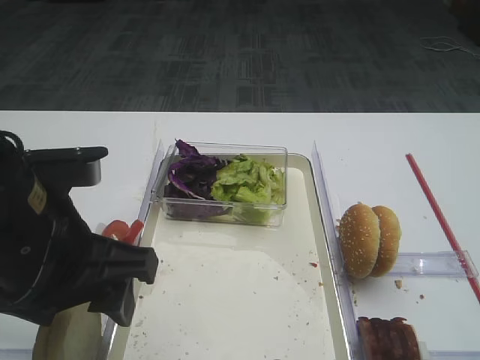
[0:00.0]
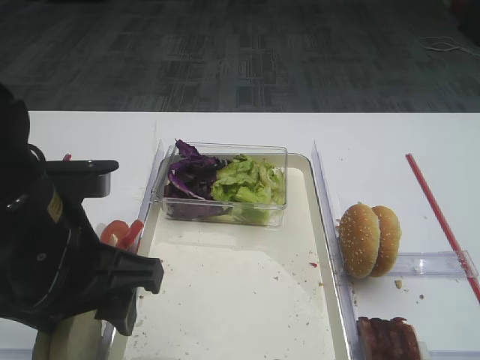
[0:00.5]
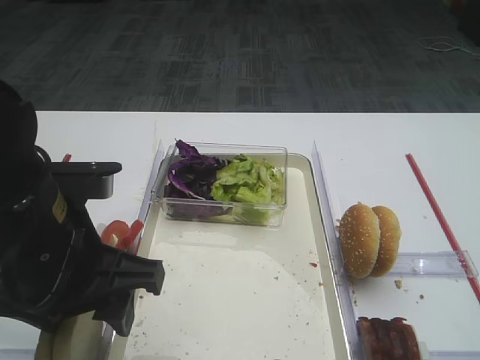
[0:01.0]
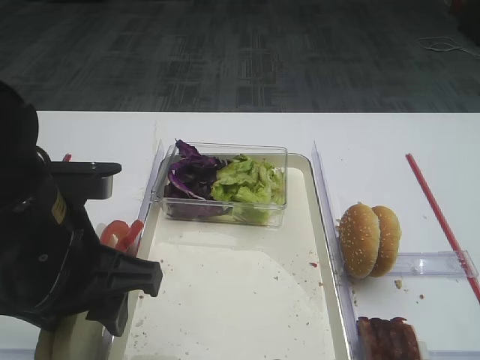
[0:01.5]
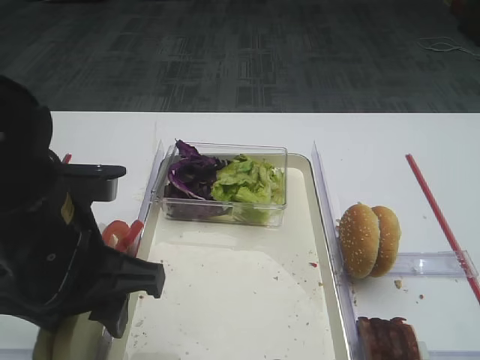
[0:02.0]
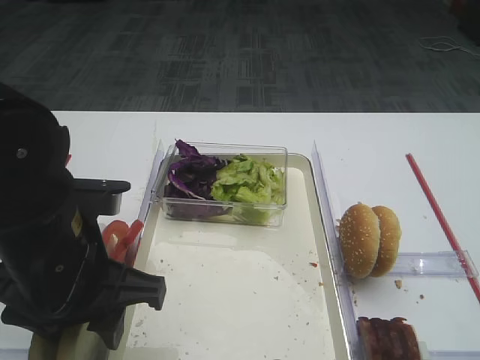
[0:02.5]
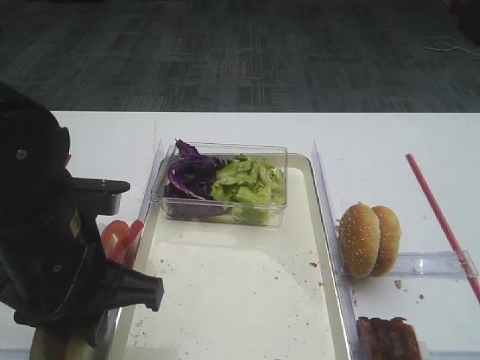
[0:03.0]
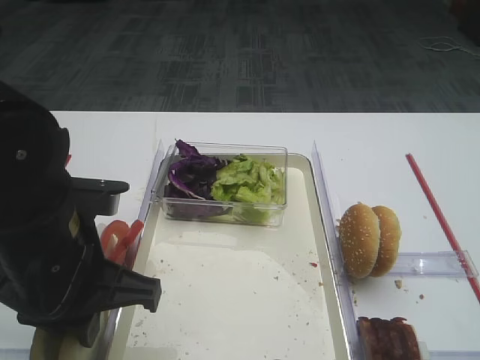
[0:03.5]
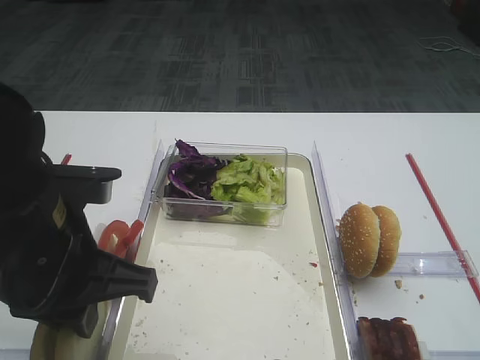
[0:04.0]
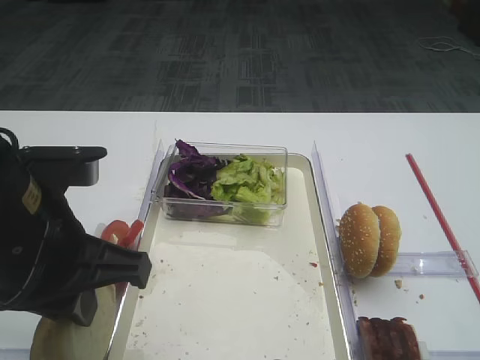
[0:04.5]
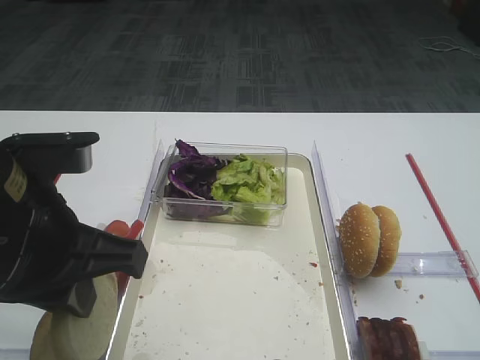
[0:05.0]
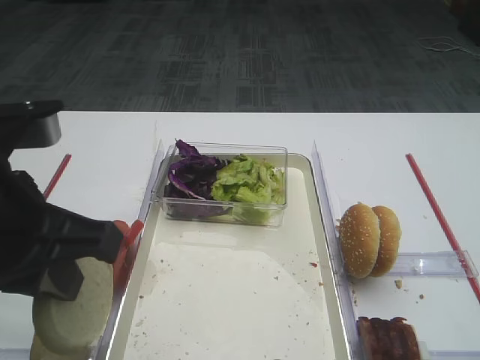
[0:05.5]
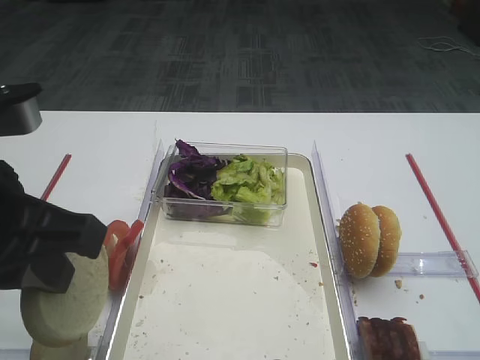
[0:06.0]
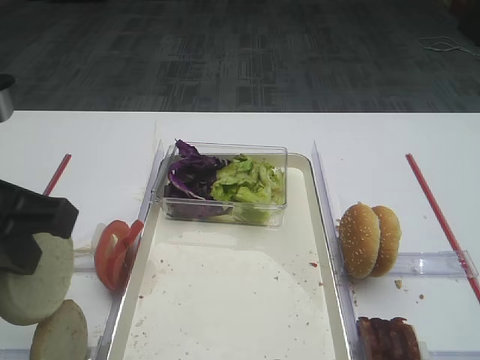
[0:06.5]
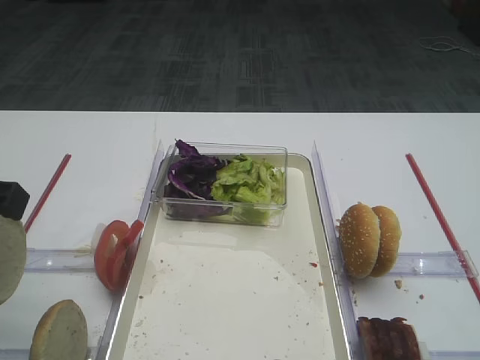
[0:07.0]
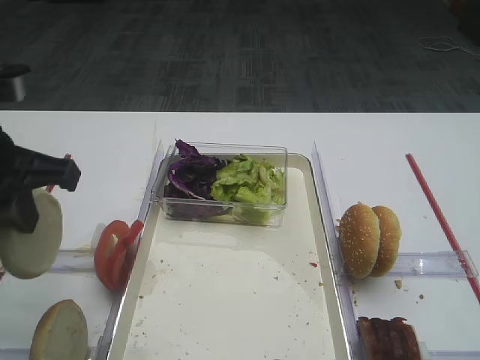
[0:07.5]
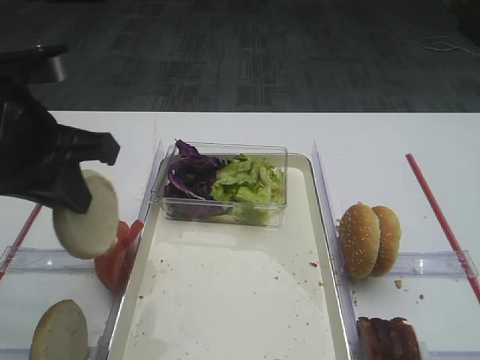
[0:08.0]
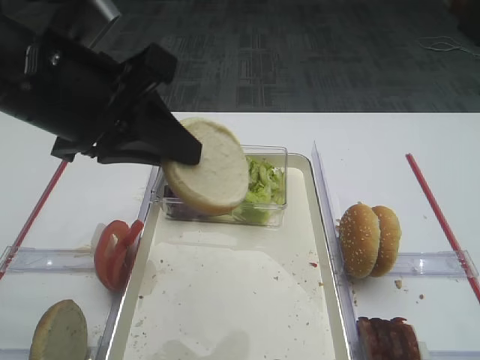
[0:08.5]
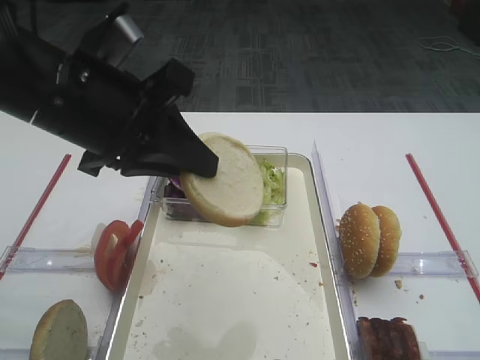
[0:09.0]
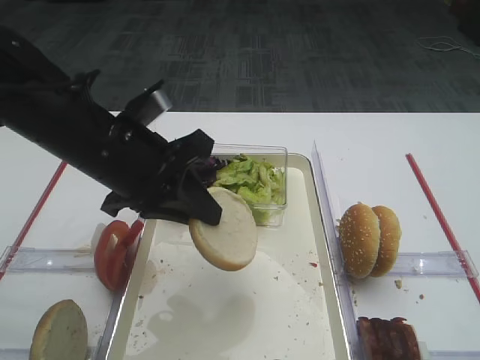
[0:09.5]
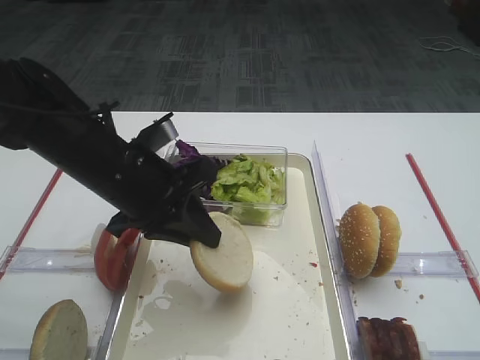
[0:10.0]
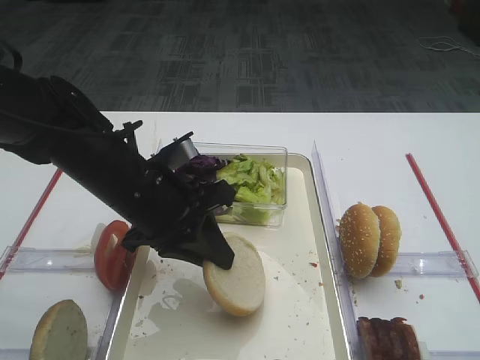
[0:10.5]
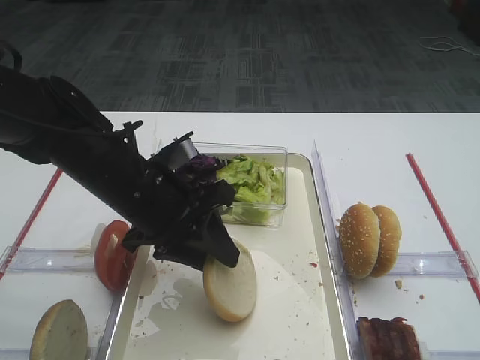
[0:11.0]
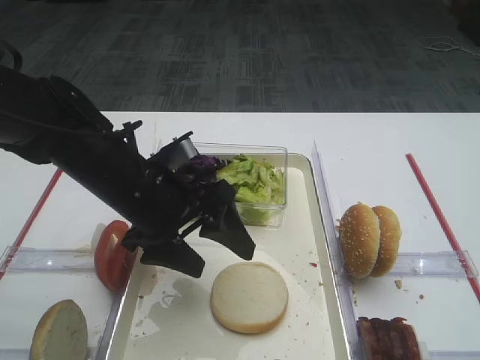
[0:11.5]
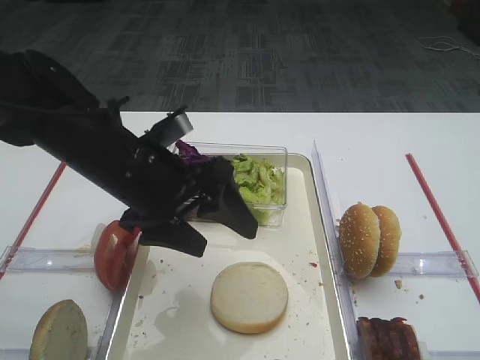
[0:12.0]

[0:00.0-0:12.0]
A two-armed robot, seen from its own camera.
Step, 0:00.0 to 0:05.5: Pick up the bread slice with the left gripper.
Step, 0:06.0 to 0:11.5: Place the bread slice on the tray with the left gripper.
0:00.0 to 0:02.0: The grippers make only small movements.
0:02.0 to 0:04.0: The left gripper closes up.
0:04.0 to 0:06.0: The left gripper moves upward, approximately 5 cm.
0:06.0 to 0:08.0: The left gripper heads forward, covering about 10 cm.
0:08.0 to 0:10.0: The left gripper moves downward and to the right, approximately 10 cm.
0:10.0 to 0:12.0: The left gripper opens its fingers.

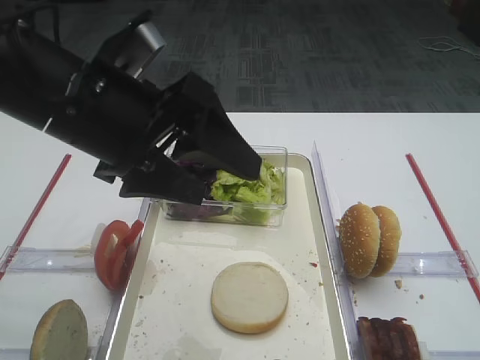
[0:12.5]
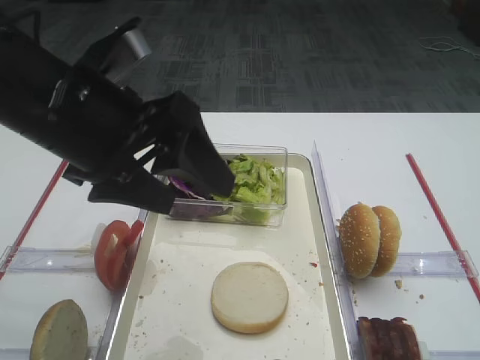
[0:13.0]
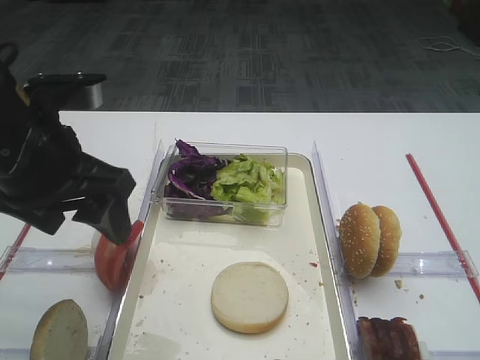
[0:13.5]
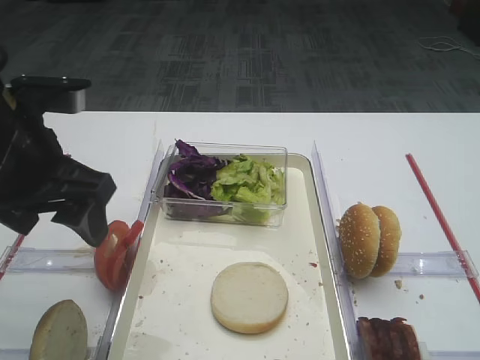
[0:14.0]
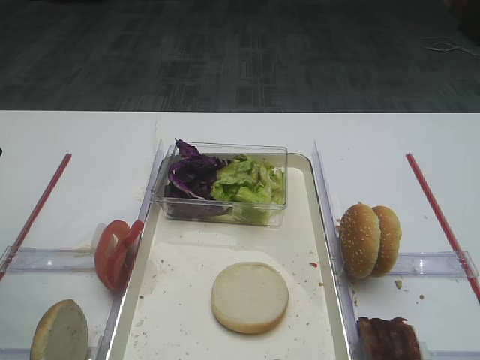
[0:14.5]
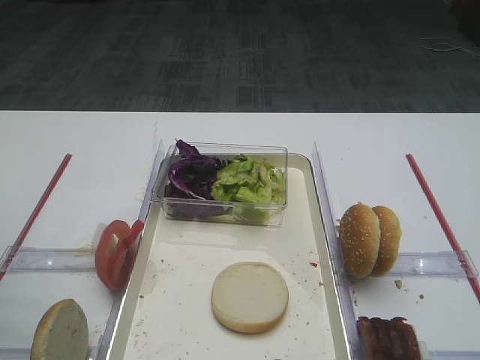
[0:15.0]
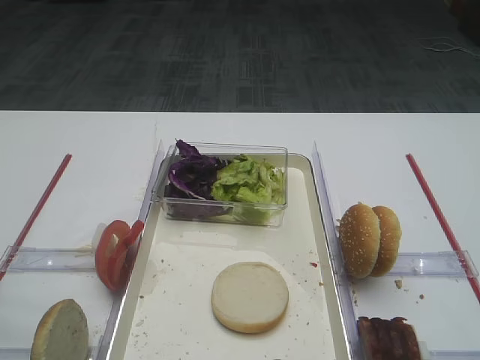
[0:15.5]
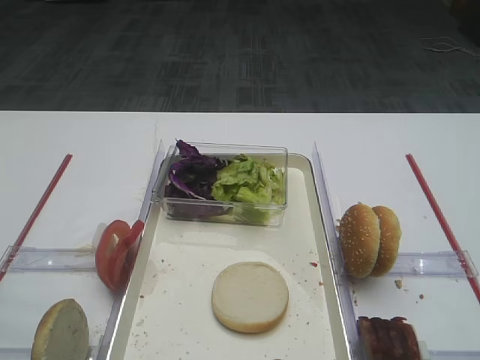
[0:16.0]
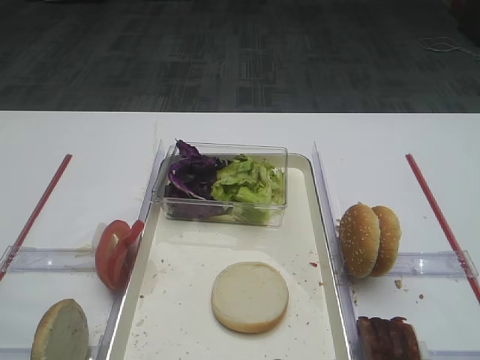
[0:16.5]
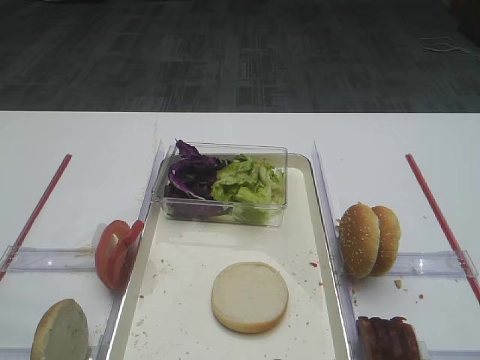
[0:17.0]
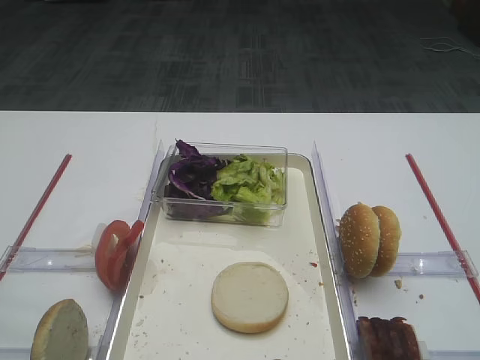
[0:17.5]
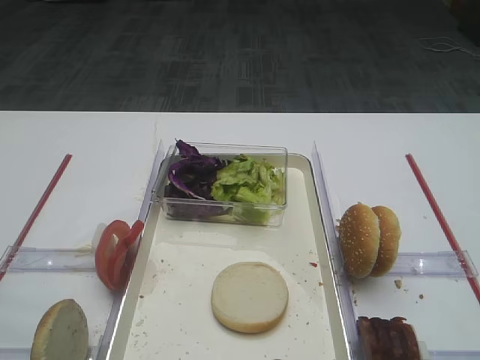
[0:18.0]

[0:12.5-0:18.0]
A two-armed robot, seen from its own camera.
0:12.5 to 0:14.5: The left gripper moves to the left, some 20 cm.
0:14.5 to 0:16.0: The left gripper moves backward, about 20 cm.

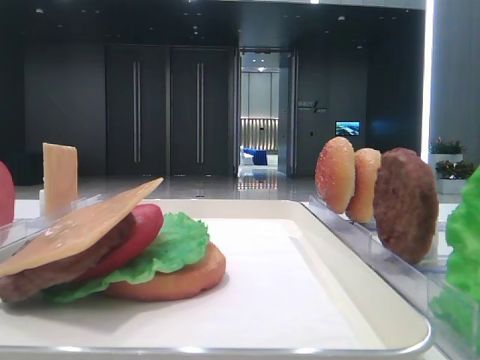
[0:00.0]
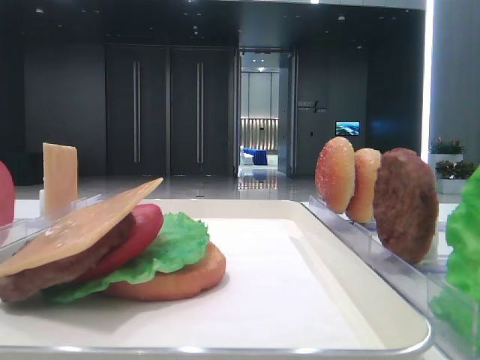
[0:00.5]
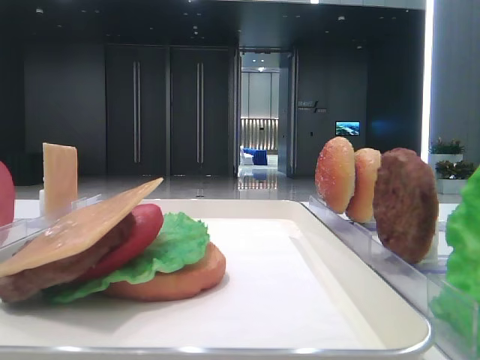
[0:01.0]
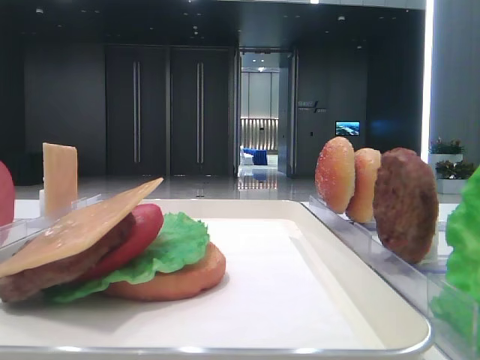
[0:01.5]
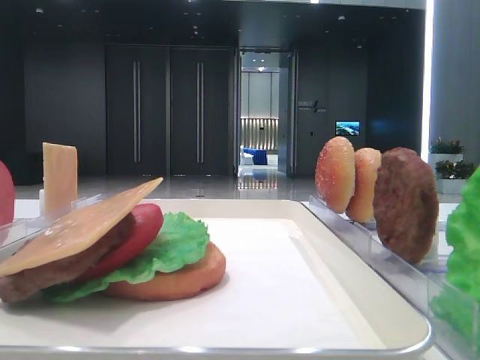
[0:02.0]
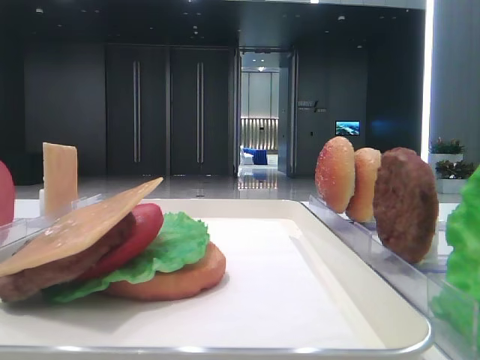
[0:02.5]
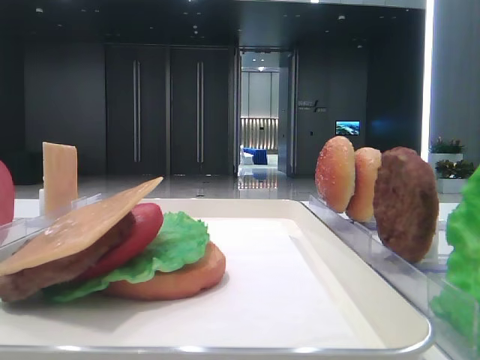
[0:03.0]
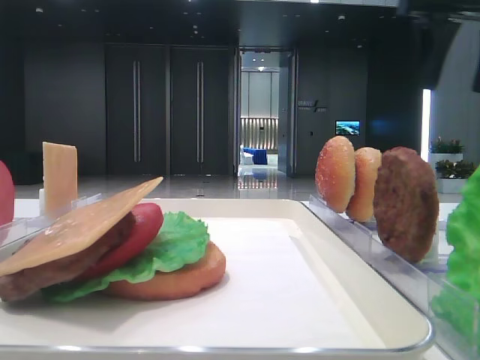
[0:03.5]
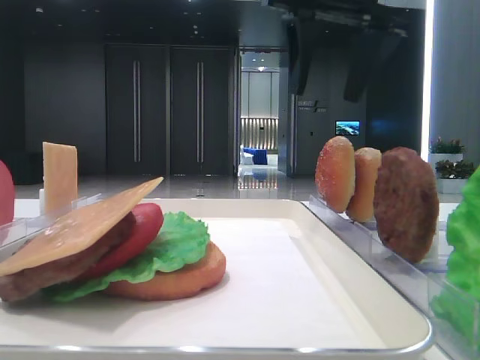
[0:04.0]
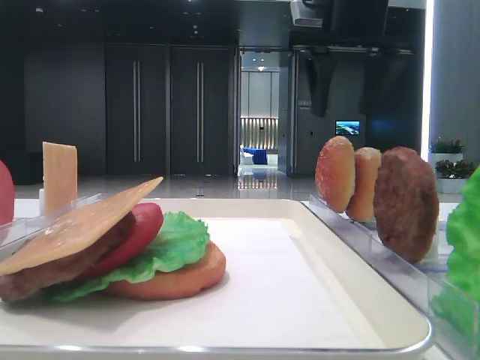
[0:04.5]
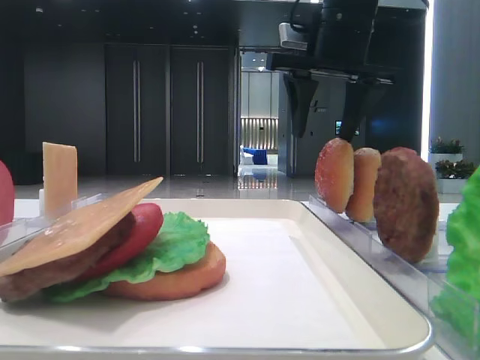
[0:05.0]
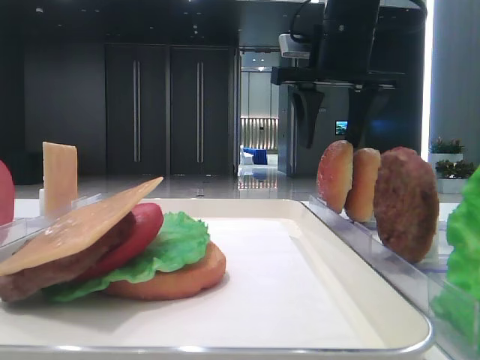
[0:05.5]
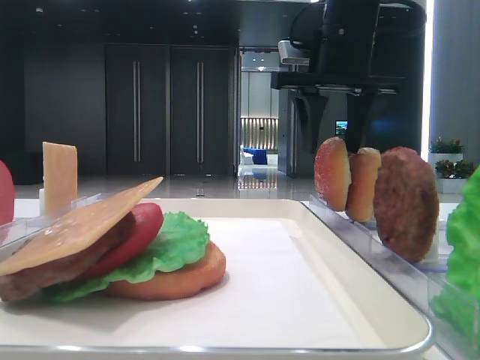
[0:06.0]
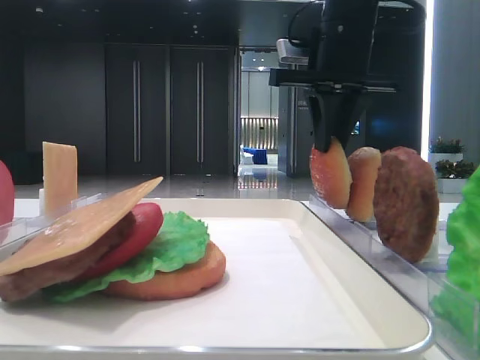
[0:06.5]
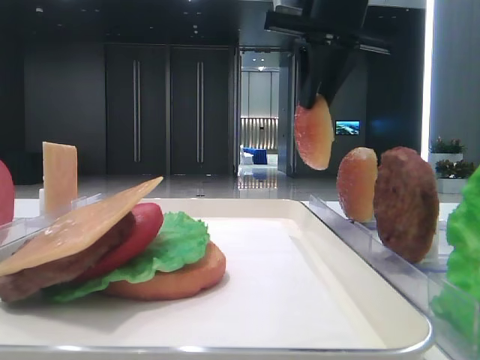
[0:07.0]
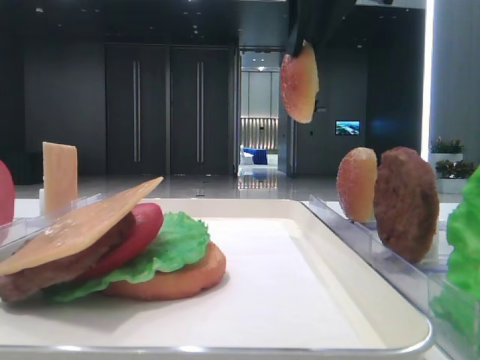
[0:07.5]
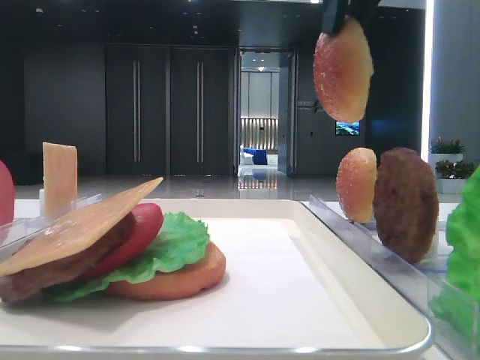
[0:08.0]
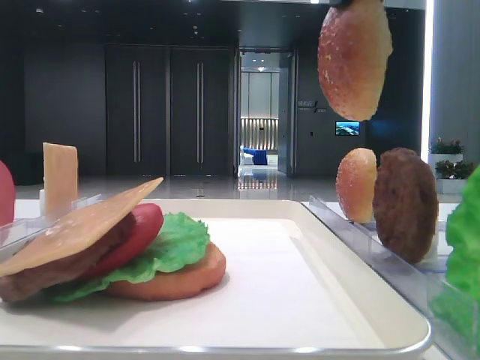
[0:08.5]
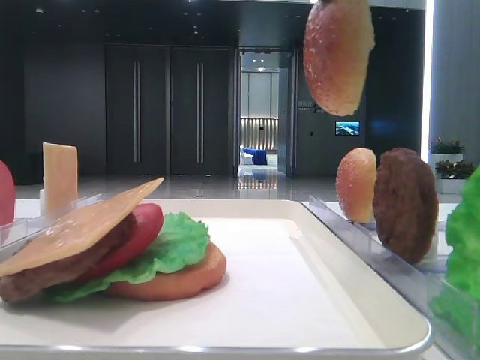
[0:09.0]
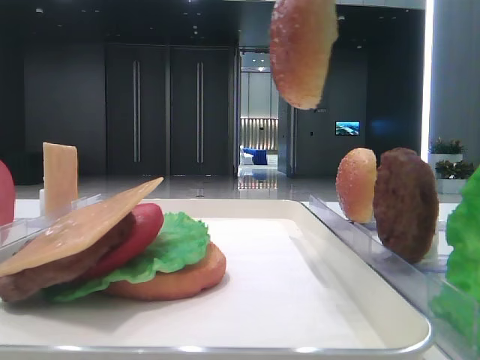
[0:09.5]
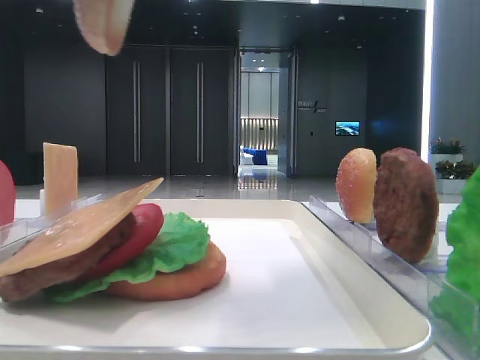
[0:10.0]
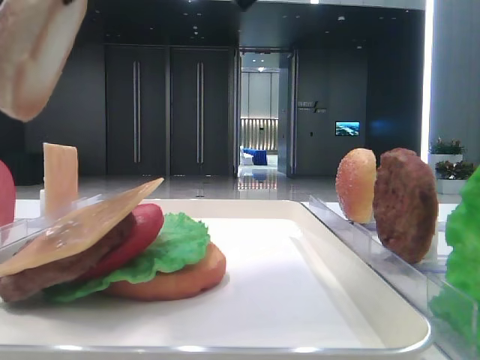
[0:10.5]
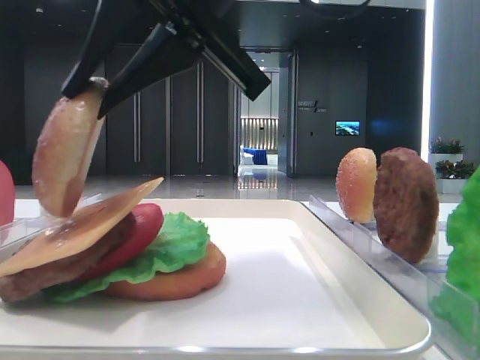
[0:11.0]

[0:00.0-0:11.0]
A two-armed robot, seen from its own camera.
Step, 0:00.0 to 0:06.0: Pick up the top bread slice with the right hand.
0:02.0 to 0:03.5: The right gripper goes some 30 cm forward.
0:03.5 to 0:05.5: The right gripper goes some 15 cm to the left and downward.
0:05.5 to 0:07.5: The right gripper travels upward and backward by roughly 10 cm, and closes up.
0:07.5 to 0:09.0: The right gripper moves backward, some 15 cm.
0:09.0 to 0:11.0: The right gripper moves to the left and downward, approximately 15 cm.
